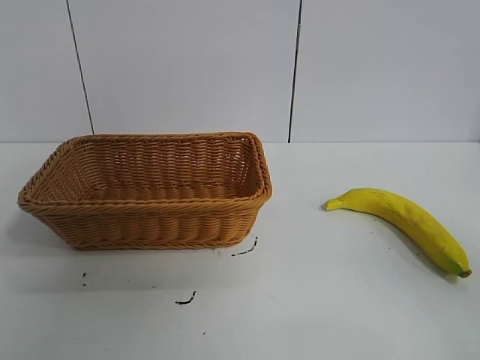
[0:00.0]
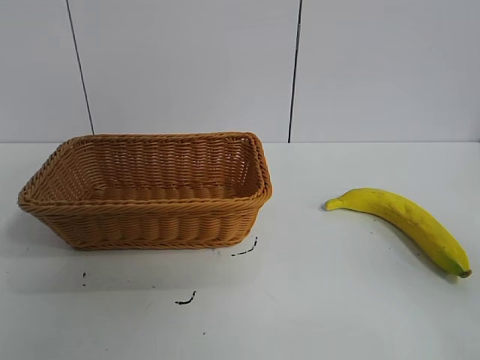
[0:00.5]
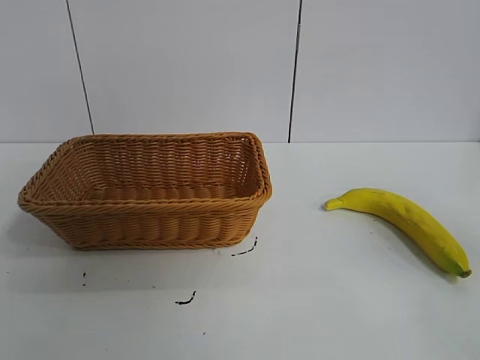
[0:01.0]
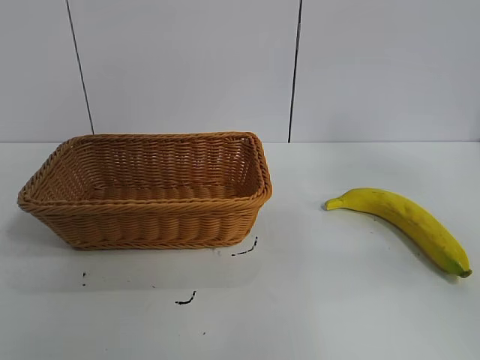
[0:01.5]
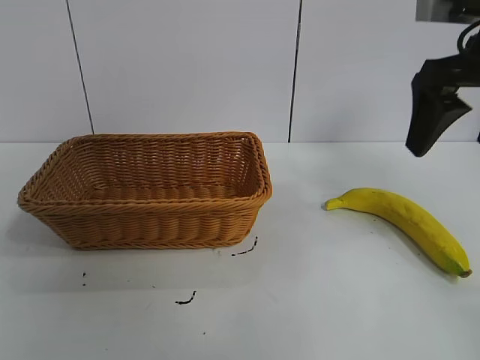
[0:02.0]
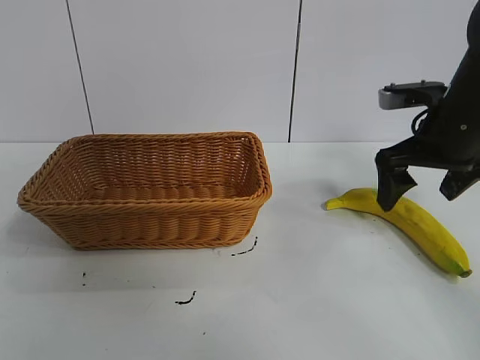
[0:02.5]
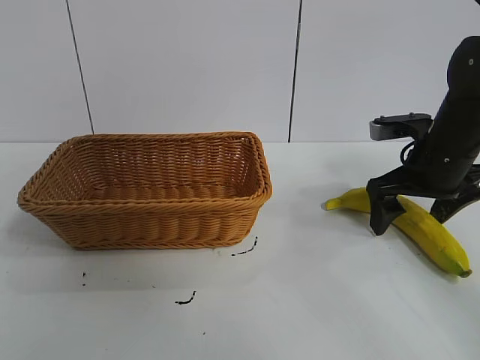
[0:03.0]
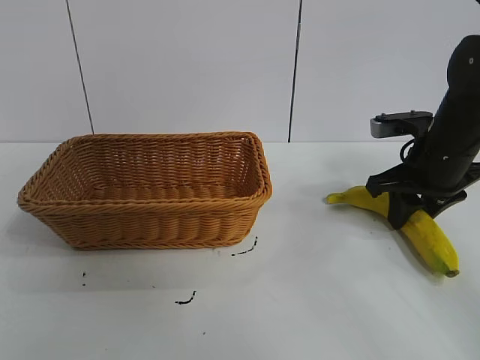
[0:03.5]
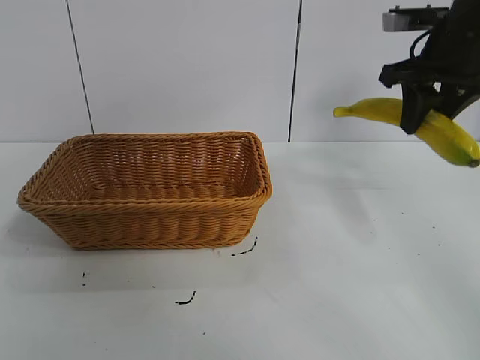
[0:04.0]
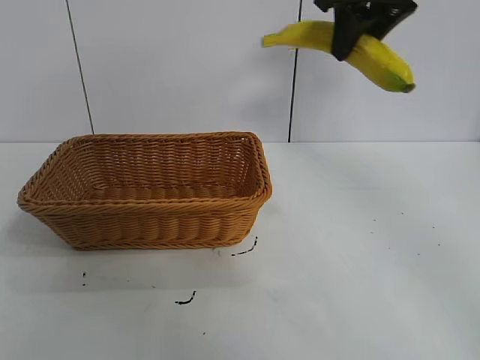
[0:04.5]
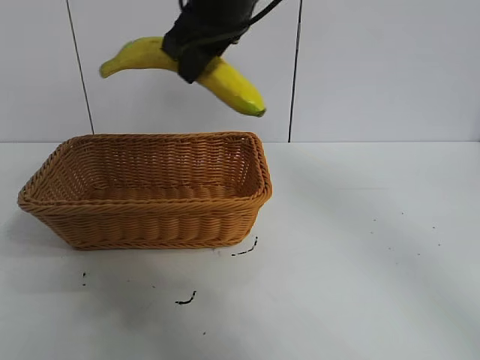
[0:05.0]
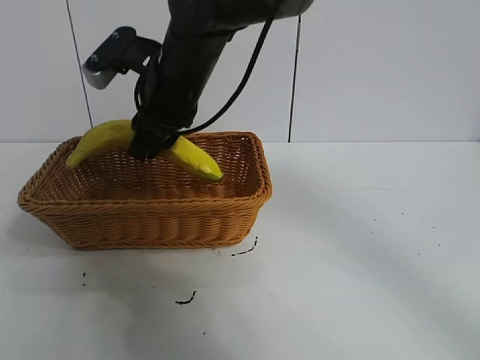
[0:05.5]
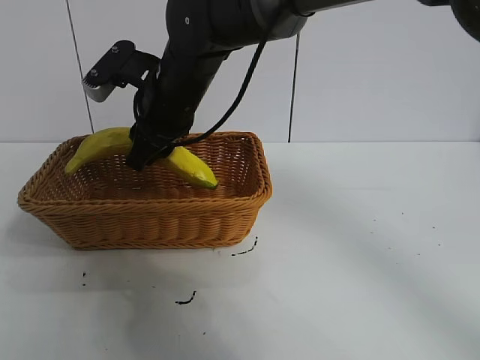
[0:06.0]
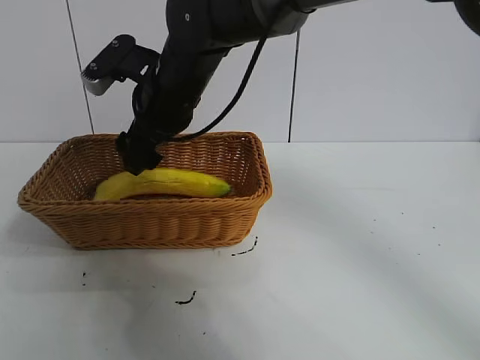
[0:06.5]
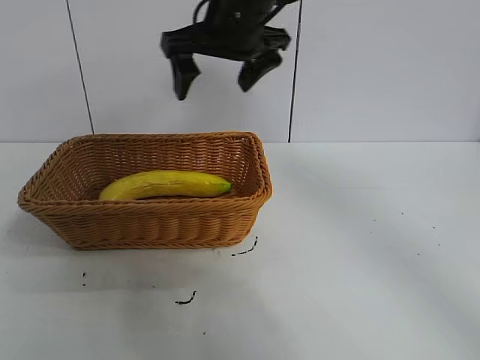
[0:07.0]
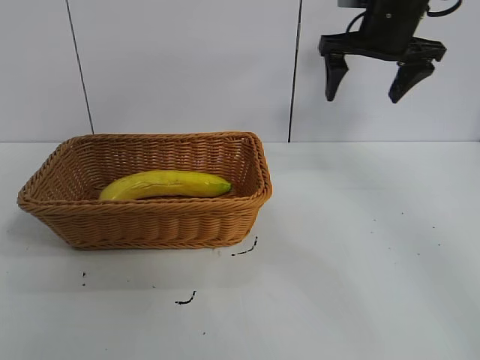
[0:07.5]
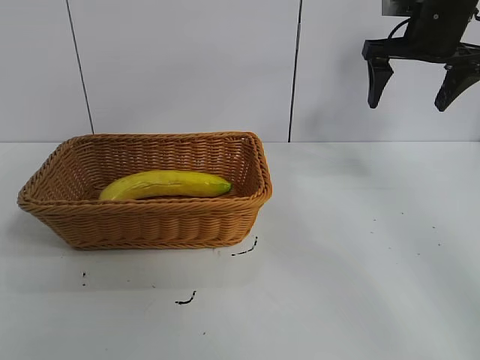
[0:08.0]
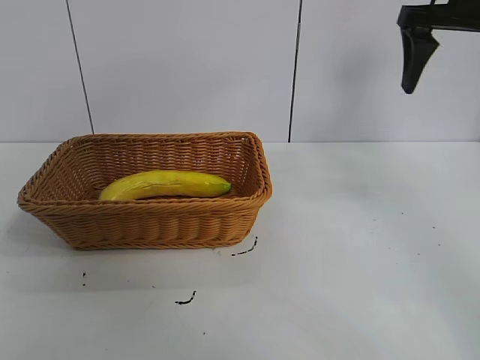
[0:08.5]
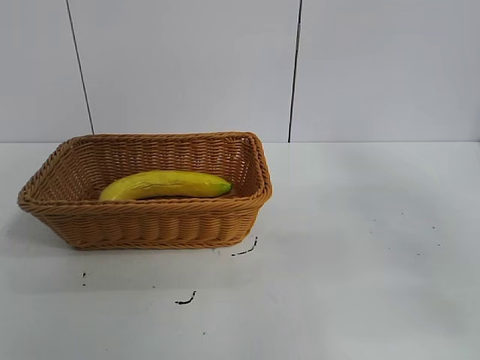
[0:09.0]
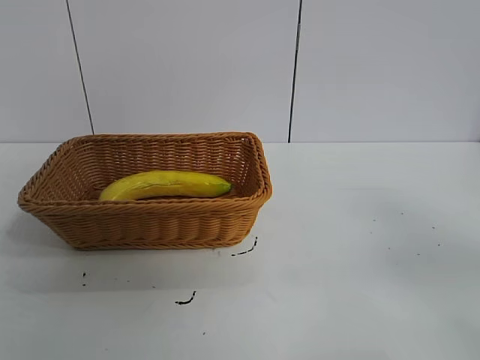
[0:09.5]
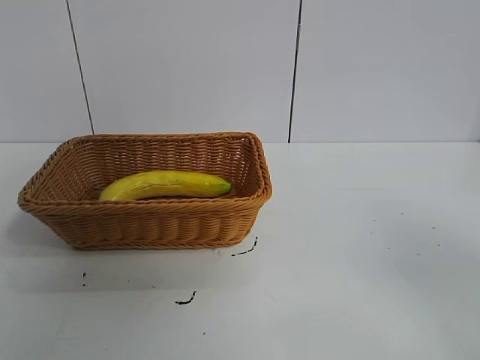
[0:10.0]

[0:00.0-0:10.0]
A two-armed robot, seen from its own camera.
Task of the whole recording: pick up the banana and put it into the basket.
Step, 0:01.0 to 0:03.0: Grasp the banana with right gripper.
Step, 0:04.0 to 0:06.5: Place the banana in the basket with right gripper.
